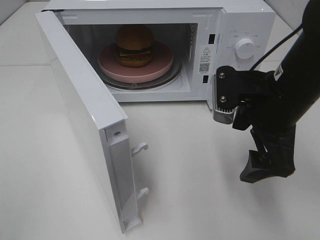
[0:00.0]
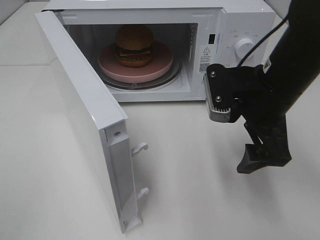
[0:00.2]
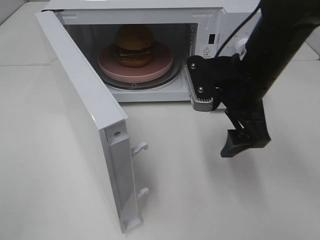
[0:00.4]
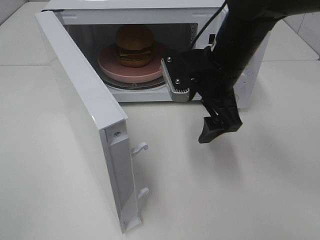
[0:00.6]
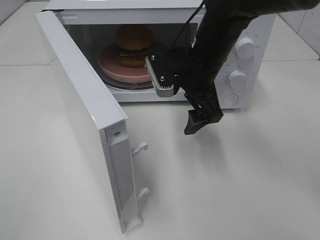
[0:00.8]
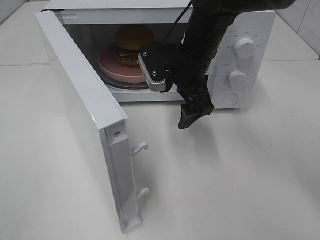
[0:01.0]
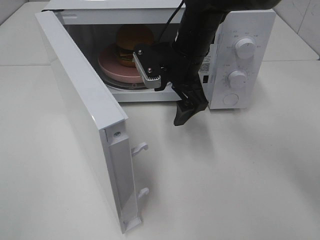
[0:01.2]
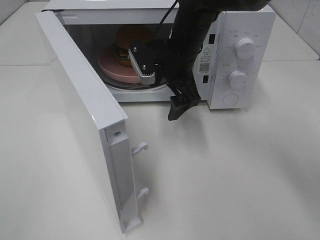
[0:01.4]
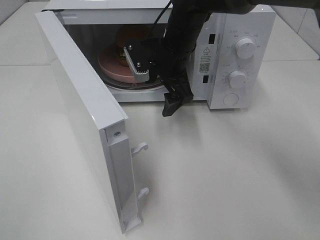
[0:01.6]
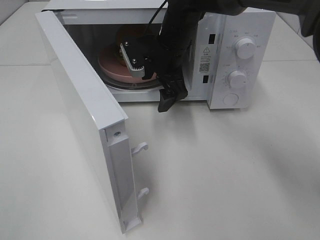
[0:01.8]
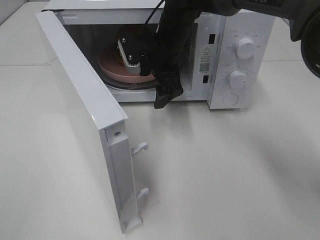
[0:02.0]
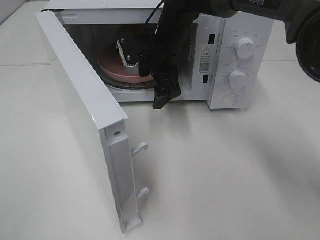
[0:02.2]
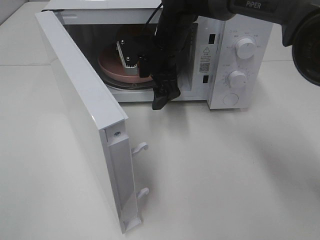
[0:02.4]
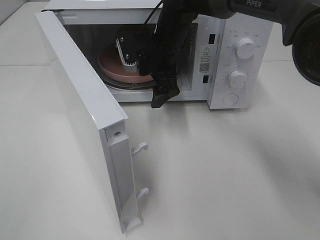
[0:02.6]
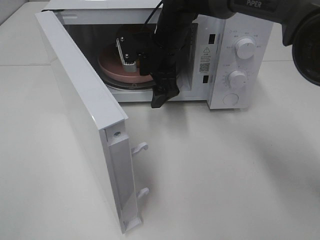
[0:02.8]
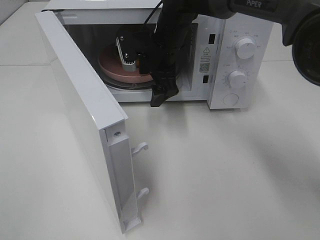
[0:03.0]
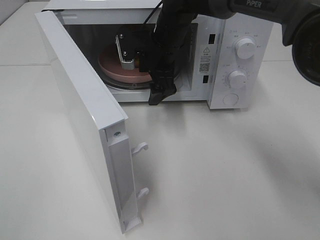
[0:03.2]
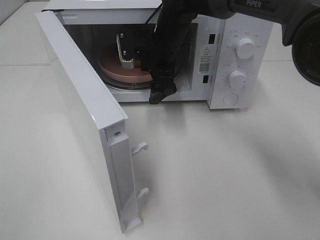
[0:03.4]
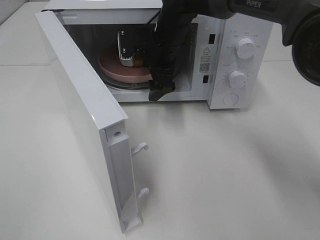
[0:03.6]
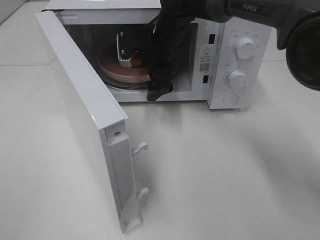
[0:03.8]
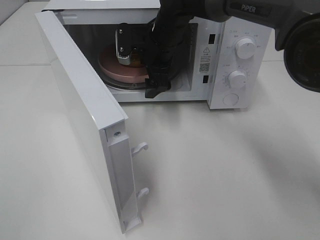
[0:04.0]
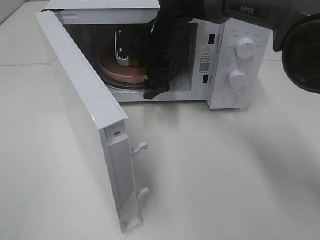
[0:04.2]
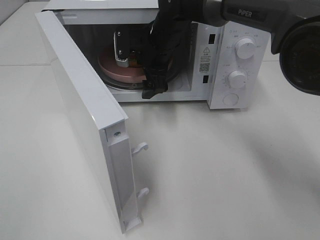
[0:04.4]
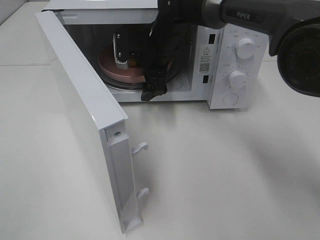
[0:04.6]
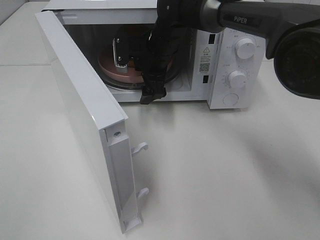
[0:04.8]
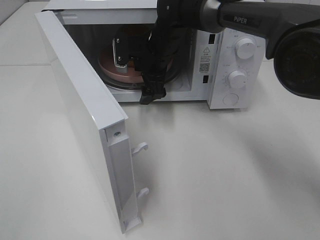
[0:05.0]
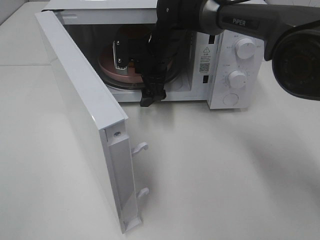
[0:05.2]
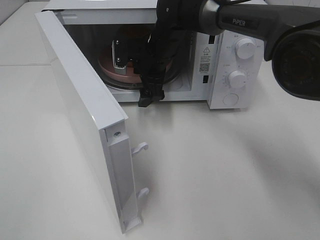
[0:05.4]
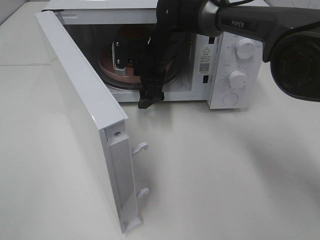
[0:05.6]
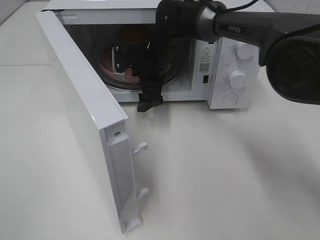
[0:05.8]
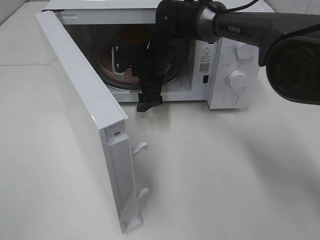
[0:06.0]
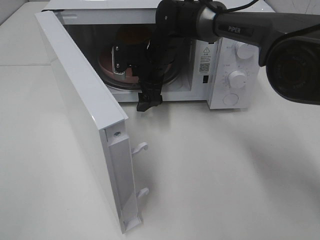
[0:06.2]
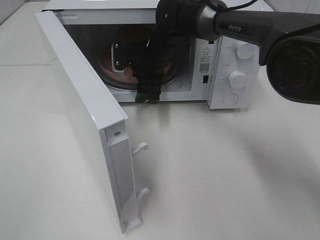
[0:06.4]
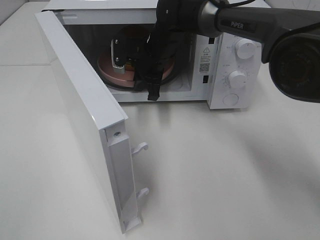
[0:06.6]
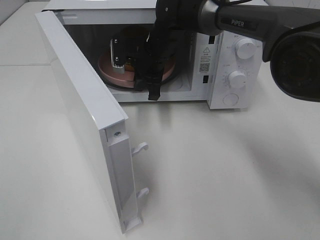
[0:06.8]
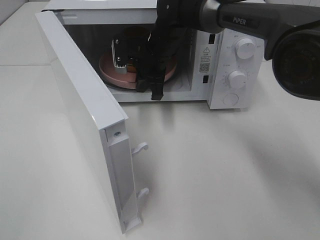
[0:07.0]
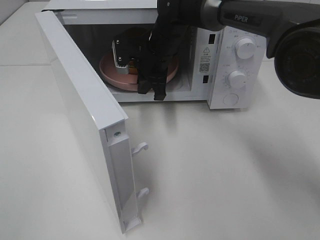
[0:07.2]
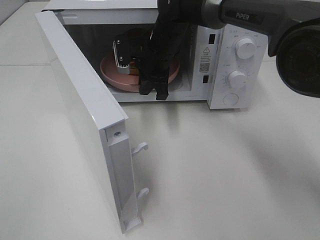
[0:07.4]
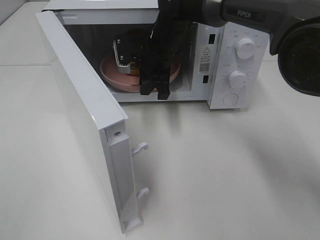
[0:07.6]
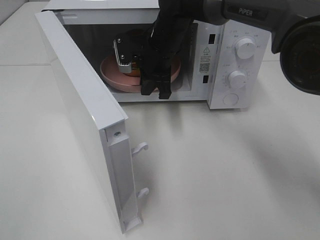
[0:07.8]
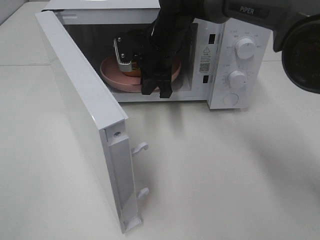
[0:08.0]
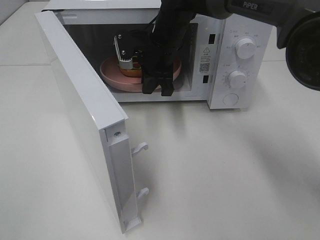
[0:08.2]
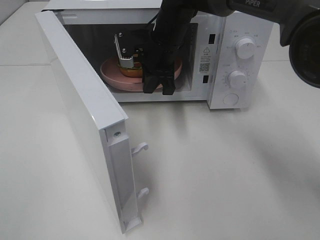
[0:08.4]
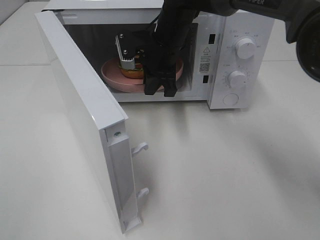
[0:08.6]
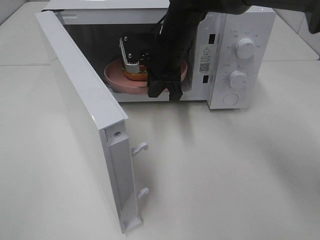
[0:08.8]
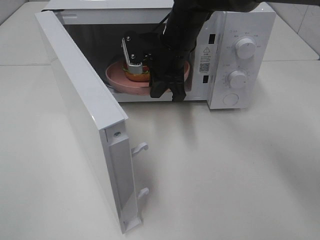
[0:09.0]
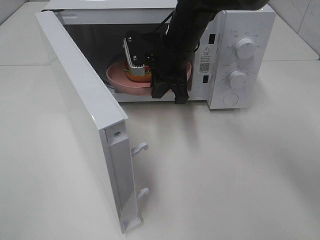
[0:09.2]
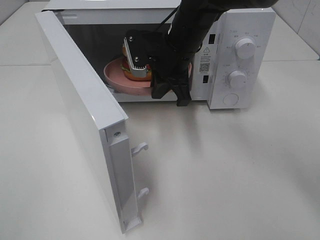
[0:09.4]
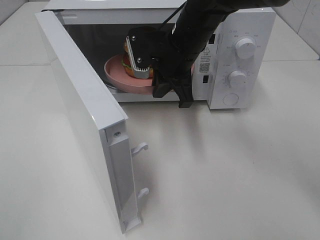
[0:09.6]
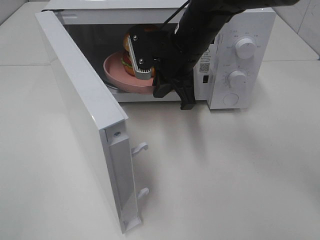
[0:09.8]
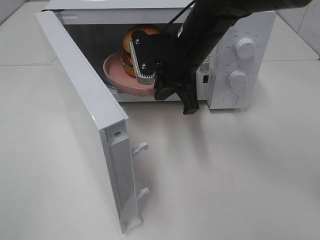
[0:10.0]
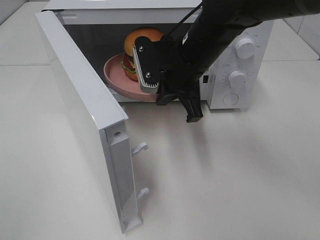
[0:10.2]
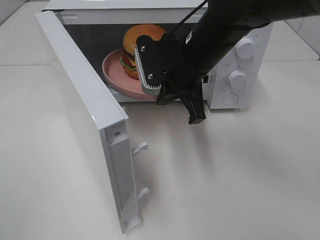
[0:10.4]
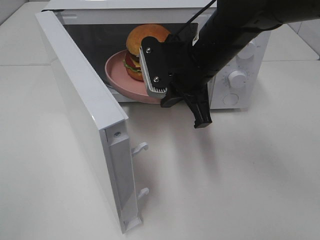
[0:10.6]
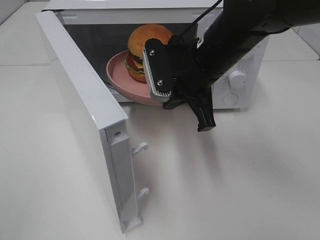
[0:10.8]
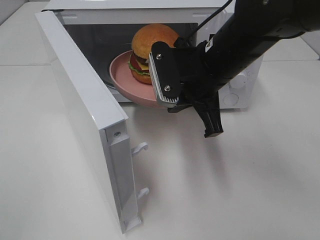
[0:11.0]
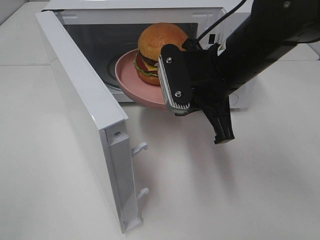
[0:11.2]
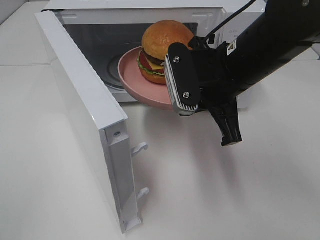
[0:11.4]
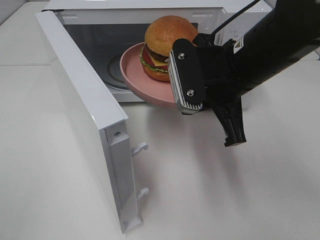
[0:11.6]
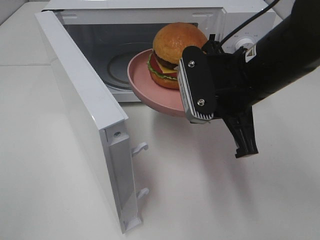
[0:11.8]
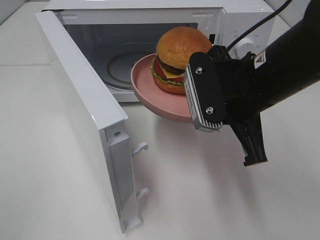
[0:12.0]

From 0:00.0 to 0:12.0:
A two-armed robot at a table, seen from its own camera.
Task of the whole recording: Heat the burger.
Step, from 0:00.0 to 0:06.8: Right hand: grab the plate with the hamburger.
From 0:00.0 to 0:01.6: The right gripper heads forward and to the left, covering roughly 20 cm.
From 0:01.6 to 0:04.4: The grippers stay close to where they were, moving slightly.
From 0:04.4 to 0:06.0: The grippers stay close to where they were, moving slightly.
From 0:06.0 to 0:07.6: The right gripper closes up.
From 0:07.6 to 0:09.0: The right gripper ends up about 5 cm from where it was.
From 0:09.0 to 0:10.4: The right gripper heads backward, covering approximately 10 cm.
From 0:10.4 to 0:12.0: The right gripper heads backward and to the right, covering approximately 10 cm.

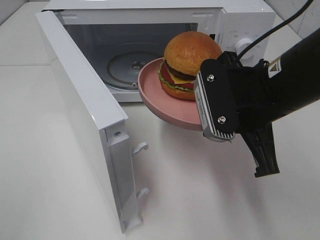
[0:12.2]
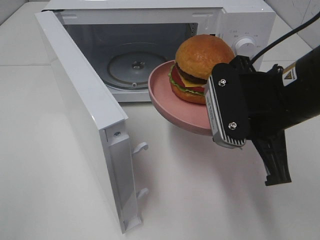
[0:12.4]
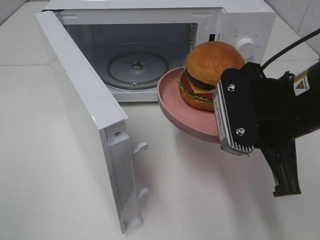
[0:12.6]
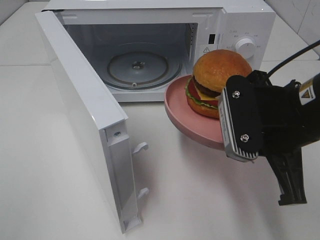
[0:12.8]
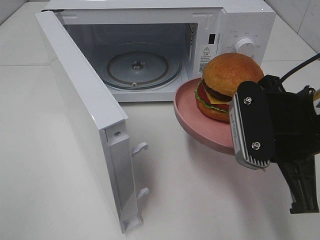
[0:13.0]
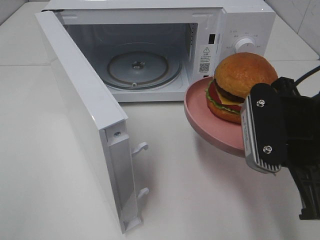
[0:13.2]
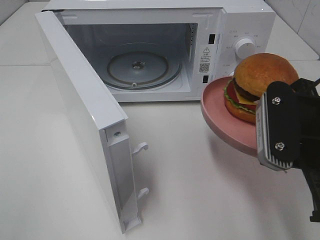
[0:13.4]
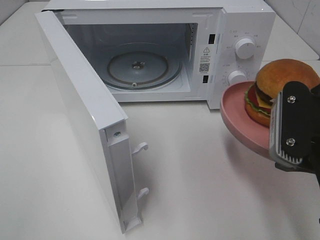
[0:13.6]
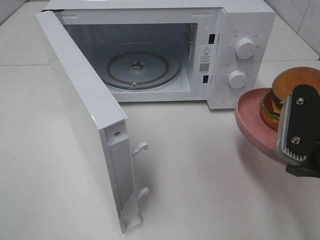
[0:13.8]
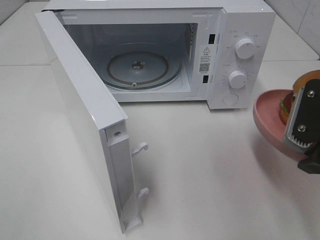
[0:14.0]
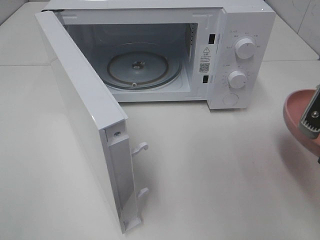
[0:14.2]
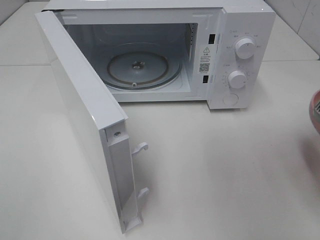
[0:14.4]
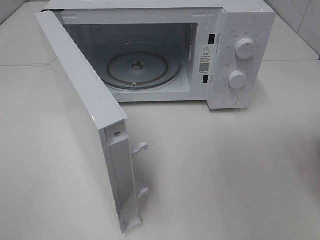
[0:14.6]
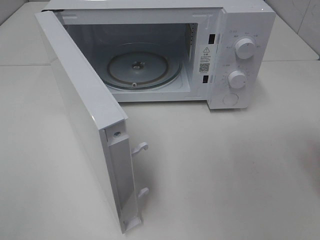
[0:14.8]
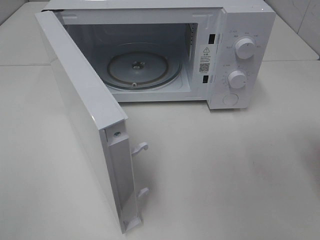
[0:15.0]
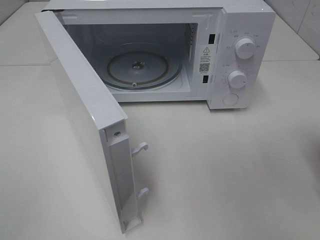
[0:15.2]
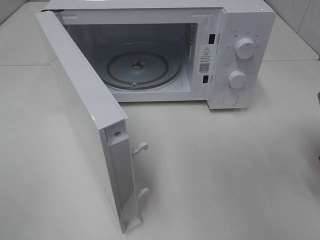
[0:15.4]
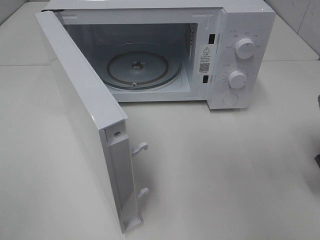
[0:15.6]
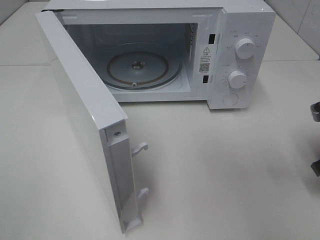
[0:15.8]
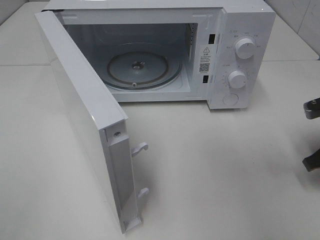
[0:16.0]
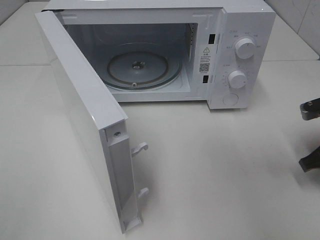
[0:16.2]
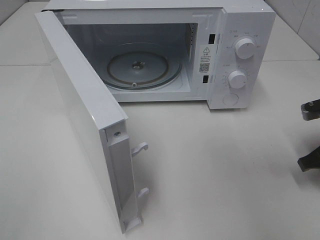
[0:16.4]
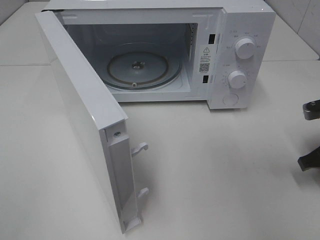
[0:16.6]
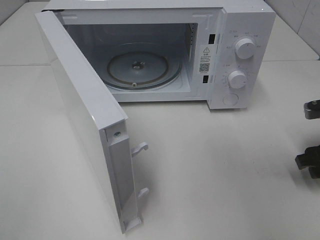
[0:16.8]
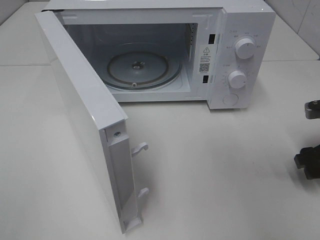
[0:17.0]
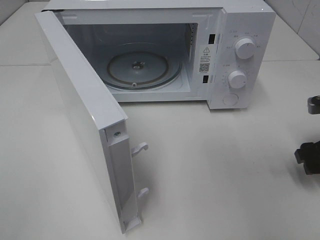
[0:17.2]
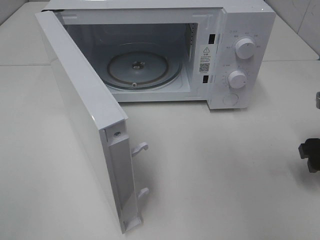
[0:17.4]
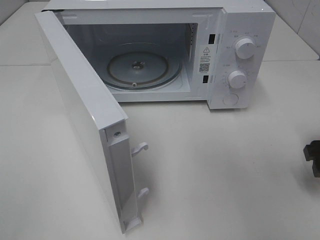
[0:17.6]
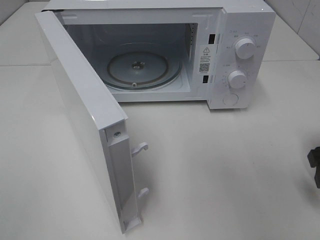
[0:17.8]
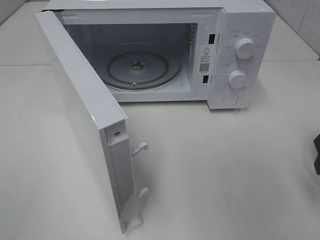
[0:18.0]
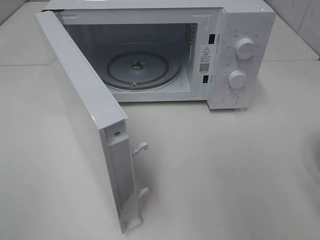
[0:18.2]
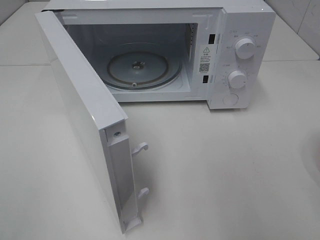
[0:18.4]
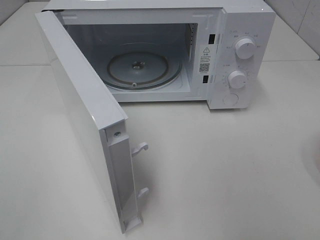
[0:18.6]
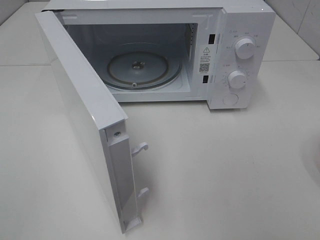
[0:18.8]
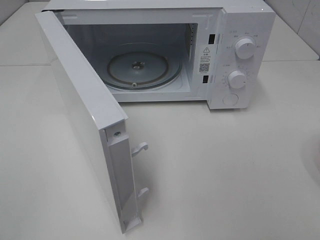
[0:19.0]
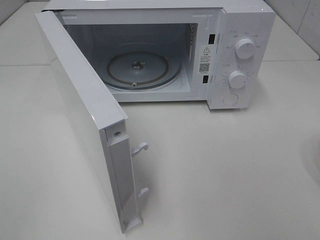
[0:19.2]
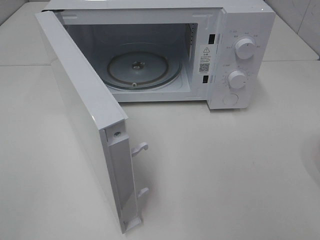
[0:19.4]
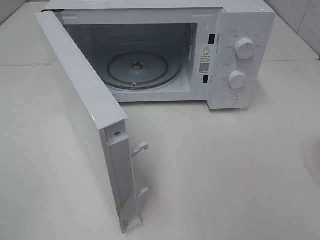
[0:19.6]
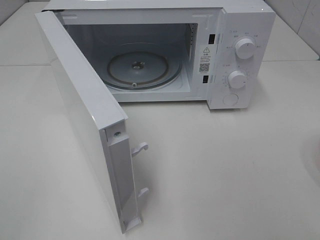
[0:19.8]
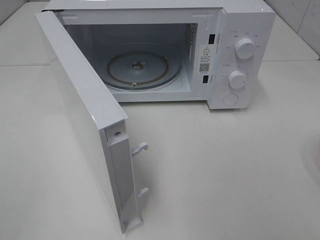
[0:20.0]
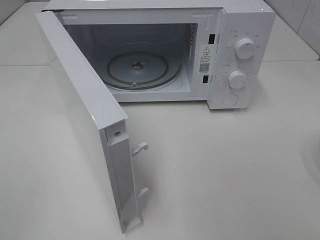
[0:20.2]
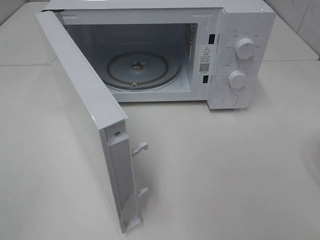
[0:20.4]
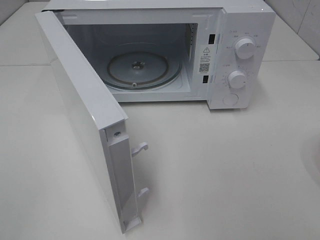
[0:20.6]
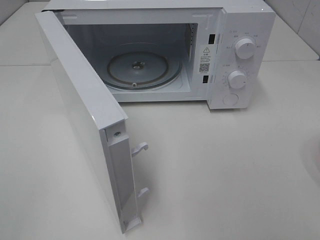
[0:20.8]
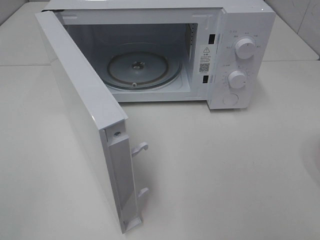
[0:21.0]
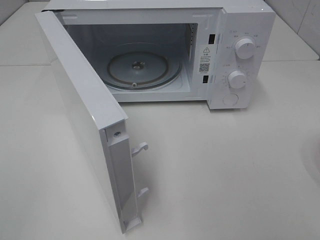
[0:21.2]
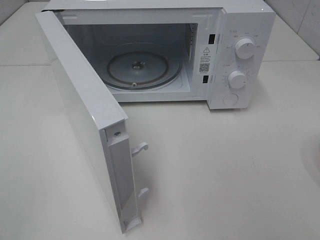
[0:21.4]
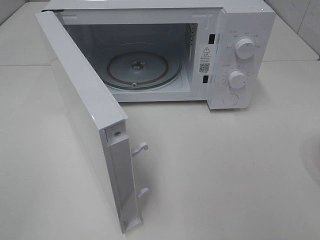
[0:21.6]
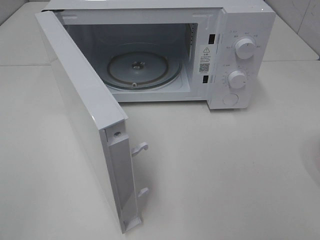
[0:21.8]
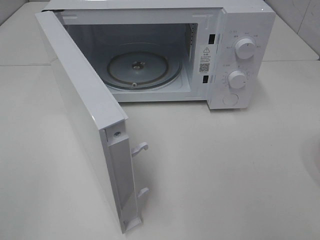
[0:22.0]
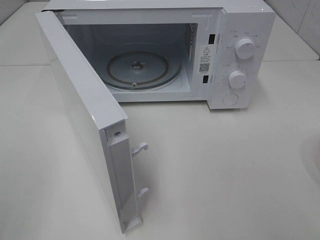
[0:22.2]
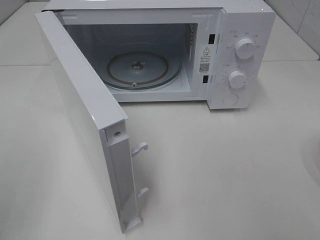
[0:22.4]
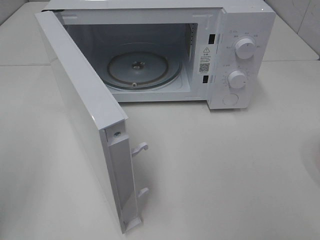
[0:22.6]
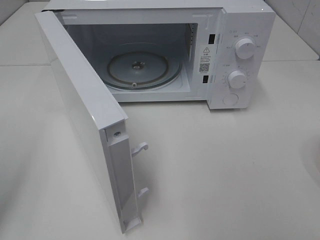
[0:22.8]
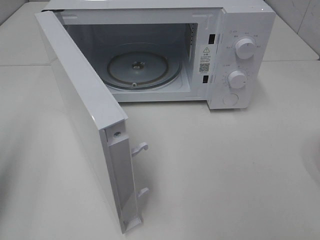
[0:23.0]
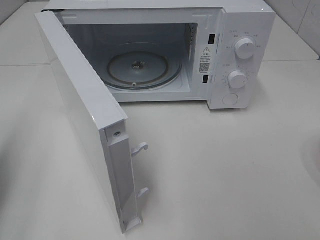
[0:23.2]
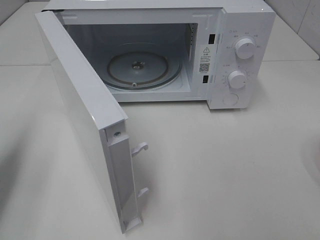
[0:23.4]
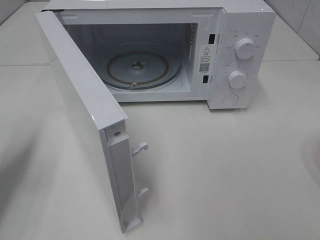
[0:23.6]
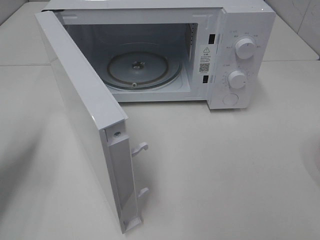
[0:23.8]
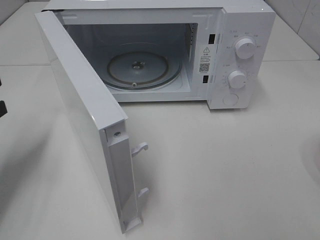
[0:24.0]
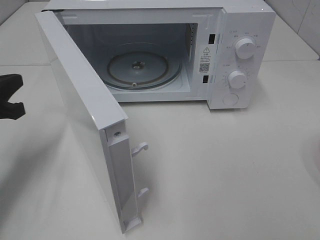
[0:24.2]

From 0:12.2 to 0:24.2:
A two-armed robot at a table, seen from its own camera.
Task of the whole recording: Heat the burger.
Step, from 0:12.2 to 0:16.6: Right hand: place the plate on the table.
From 0:12.2 to 0:13.8: The right gripper shifts approximately 10 cm to the right and backward.
From 0:13.8 to 0:15.2: The right gripper moves to the right, approximately 10 cm.
From 0:15.2 to 0:16.6: The right gripper moves downward, roughly 5 cm.
From 0:16.6 to 0:18.2: The right gripper goes about 15 cm upward and backward, and opens up.
From 0:19.8 to 0:21.2: Both grippers stay put.
From 0:22.6 to 0:24.2: The left gripper is displaced forward and downward by about 20 cm, and closes up.
